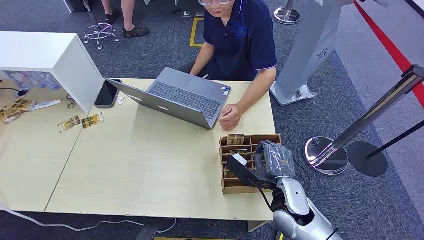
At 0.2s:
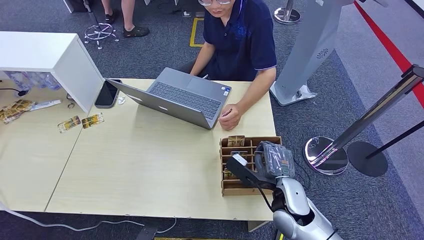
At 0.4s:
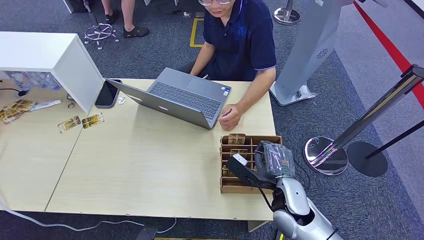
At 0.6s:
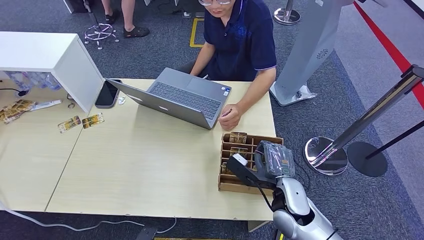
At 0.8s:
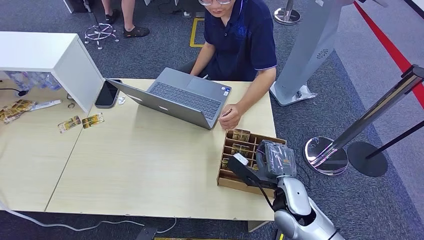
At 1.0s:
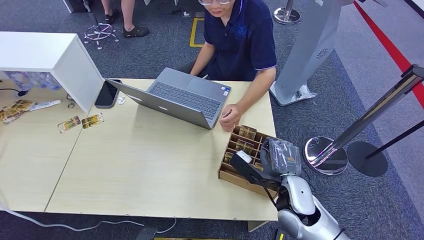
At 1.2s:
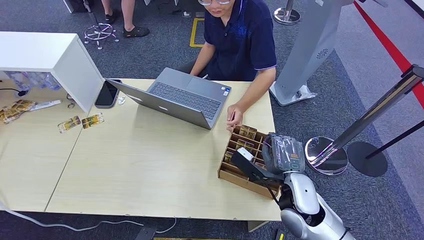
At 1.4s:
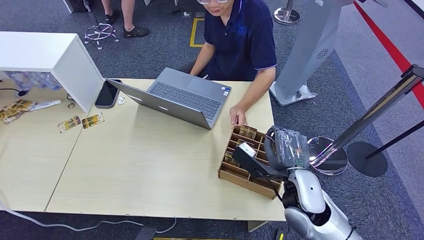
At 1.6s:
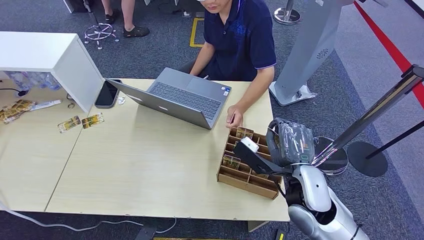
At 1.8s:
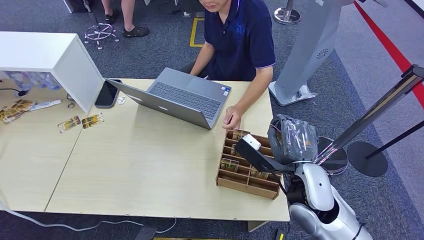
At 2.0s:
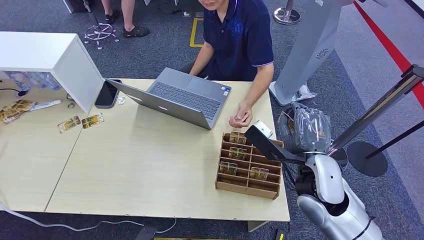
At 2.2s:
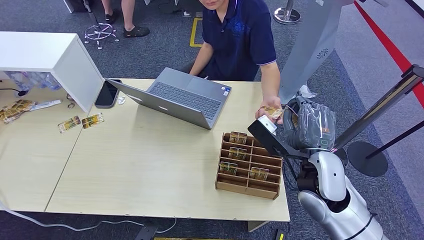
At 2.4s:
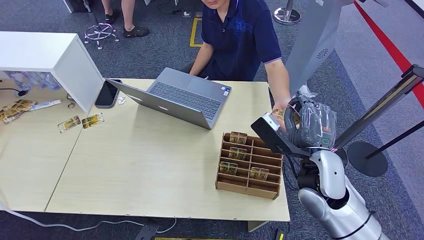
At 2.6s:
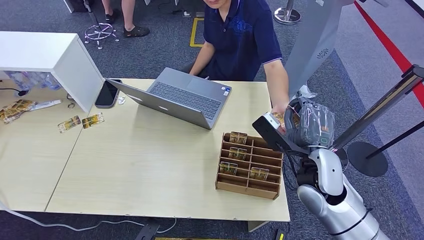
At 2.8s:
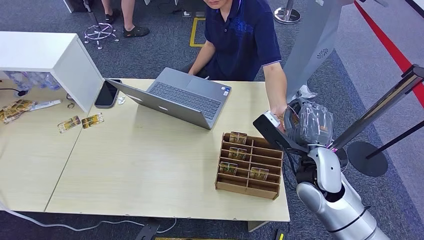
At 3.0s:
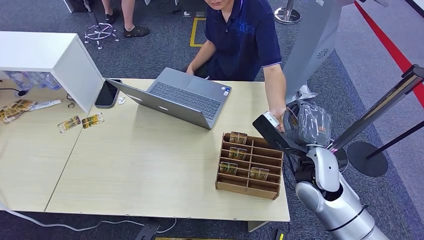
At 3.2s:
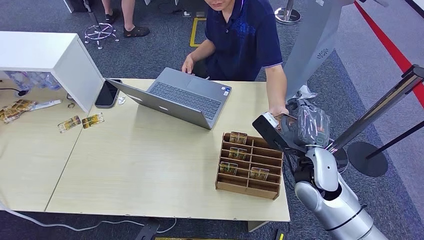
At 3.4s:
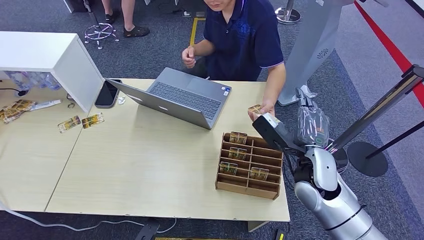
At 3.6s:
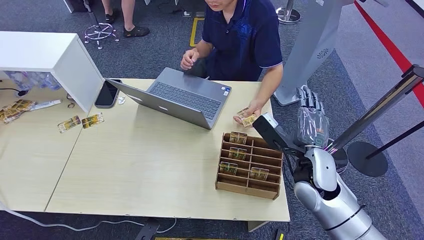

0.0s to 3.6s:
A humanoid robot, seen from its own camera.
Task of the whole recording: Pick up the card and hand it over to the target person.
Step, 0.0s to 1.4s: Pick up the key card from the card box.
Step, 3.4s to 3.6s: Hand the key card to the target.
